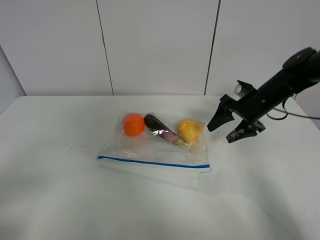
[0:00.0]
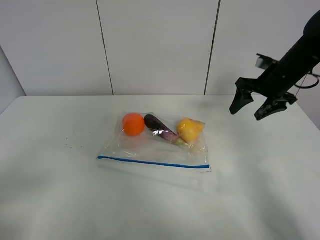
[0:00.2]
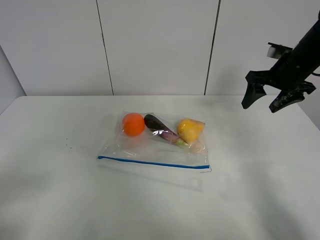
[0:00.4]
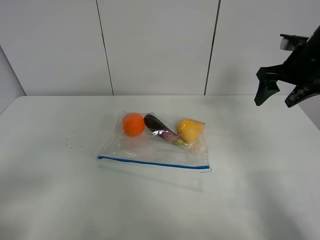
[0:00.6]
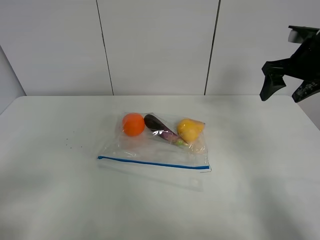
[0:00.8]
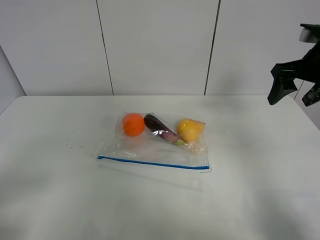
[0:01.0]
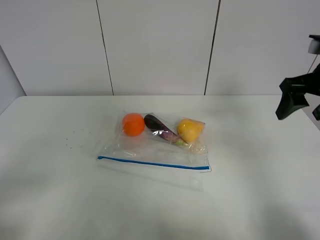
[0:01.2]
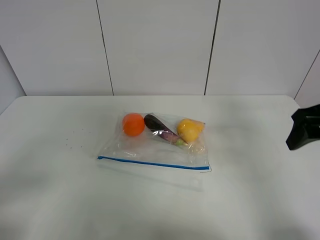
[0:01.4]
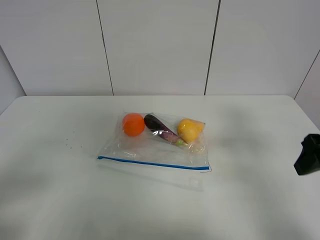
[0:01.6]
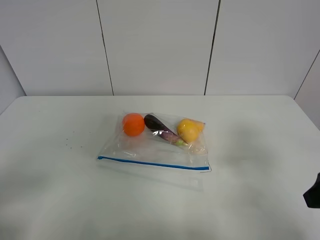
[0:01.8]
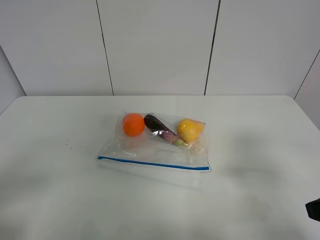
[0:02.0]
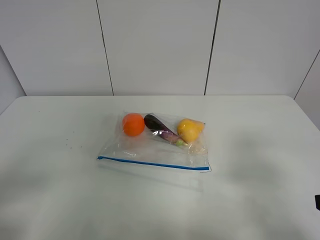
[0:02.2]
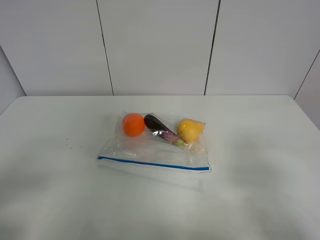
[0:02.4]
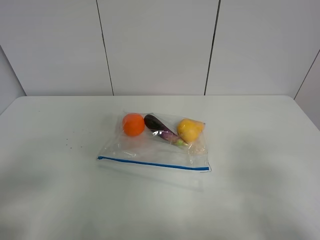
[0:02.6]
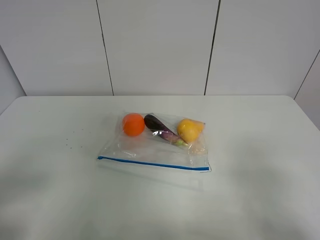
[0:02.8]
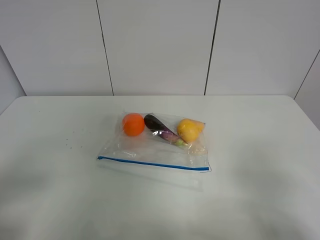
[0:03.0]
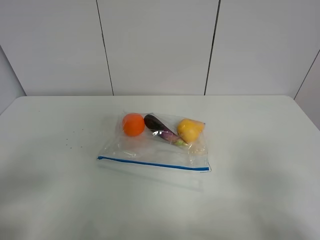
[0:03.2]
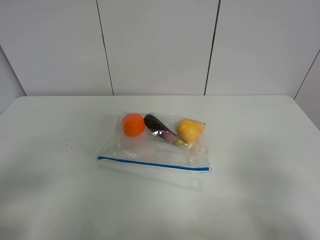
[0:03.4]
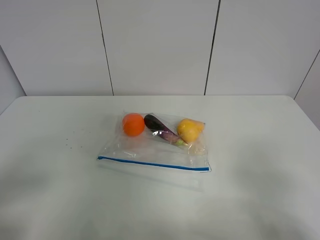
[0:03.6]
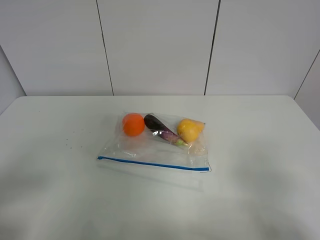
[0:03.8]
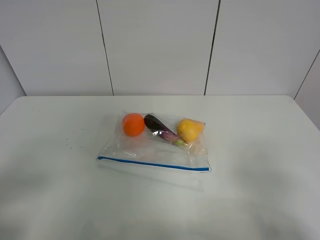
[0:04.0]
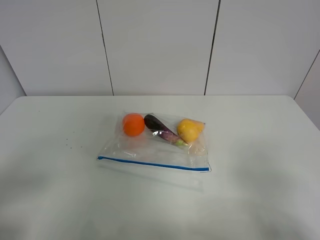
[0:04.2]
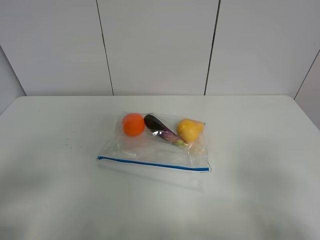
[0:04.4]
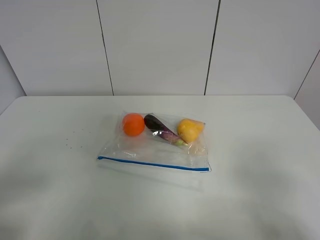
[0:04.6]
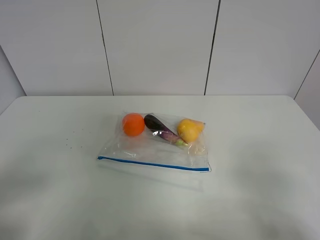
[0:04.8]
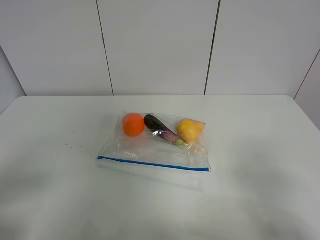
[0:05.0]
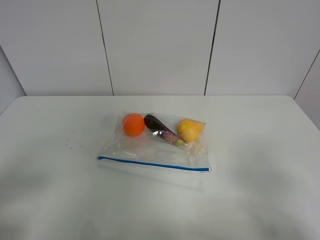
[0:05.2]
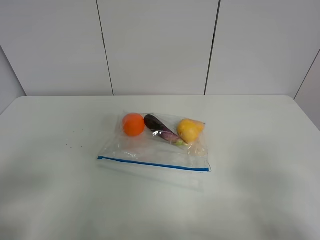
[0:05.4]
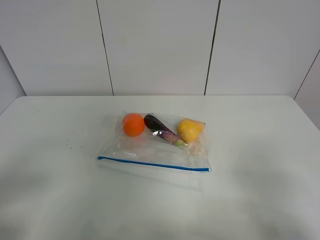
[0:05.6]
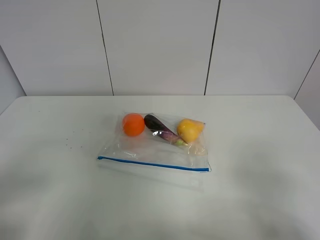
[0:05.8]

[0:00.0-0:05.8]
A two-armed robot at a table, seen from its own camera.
0:00.0 to 0:01.4: The right gripper travels backward and upward by some 20 cm.
0:01.4 to 0:02.8: The right gripper goes about 20 cm backward.
0:02.8 to 0:05.8: Both grippers stay put.

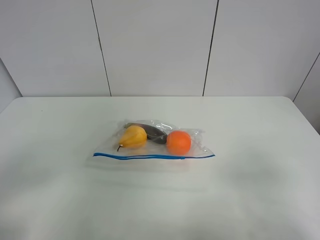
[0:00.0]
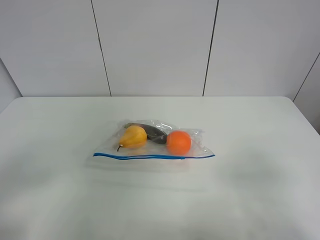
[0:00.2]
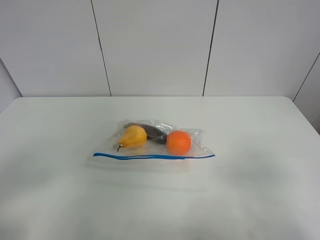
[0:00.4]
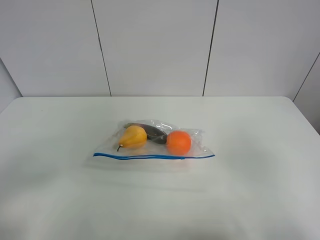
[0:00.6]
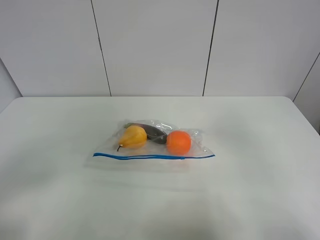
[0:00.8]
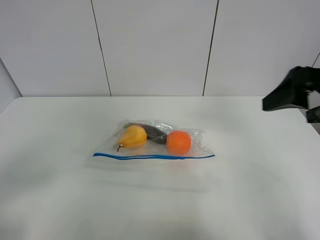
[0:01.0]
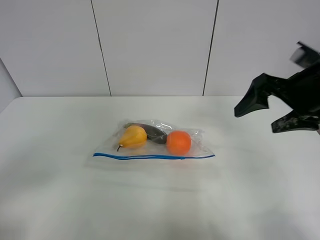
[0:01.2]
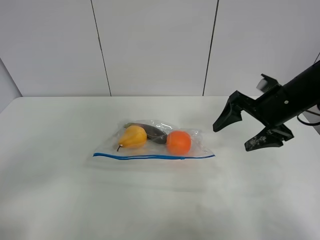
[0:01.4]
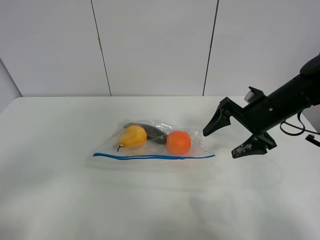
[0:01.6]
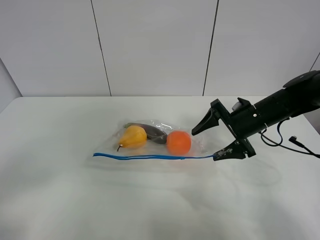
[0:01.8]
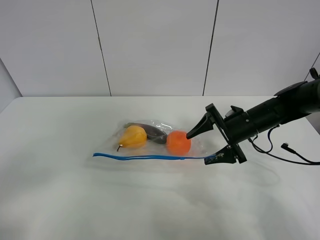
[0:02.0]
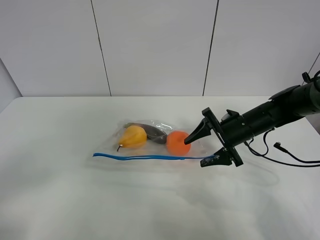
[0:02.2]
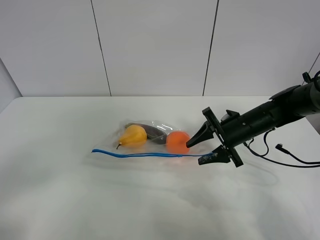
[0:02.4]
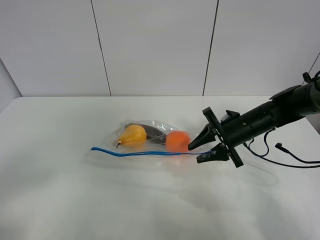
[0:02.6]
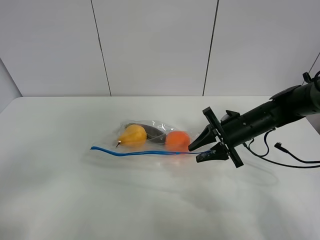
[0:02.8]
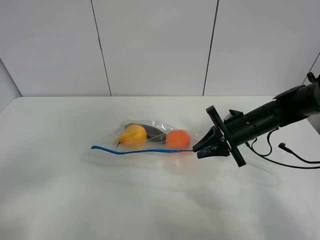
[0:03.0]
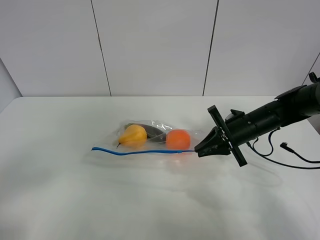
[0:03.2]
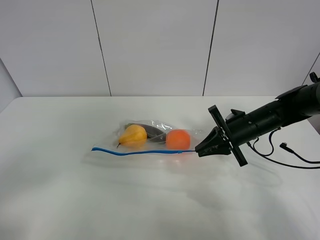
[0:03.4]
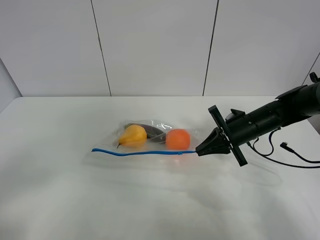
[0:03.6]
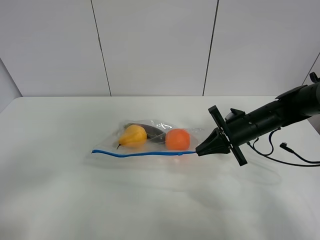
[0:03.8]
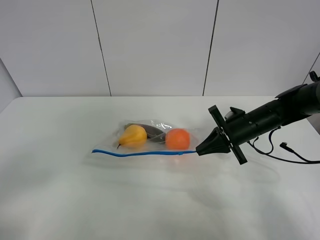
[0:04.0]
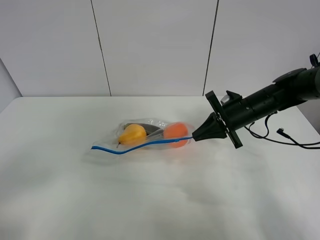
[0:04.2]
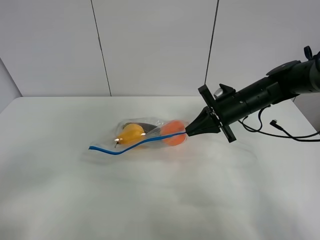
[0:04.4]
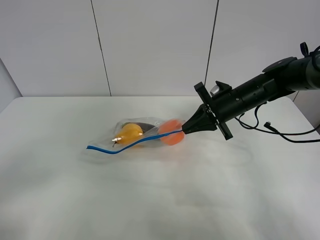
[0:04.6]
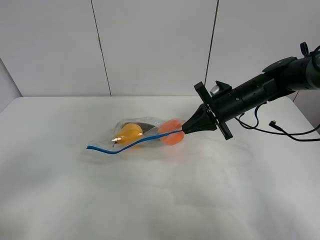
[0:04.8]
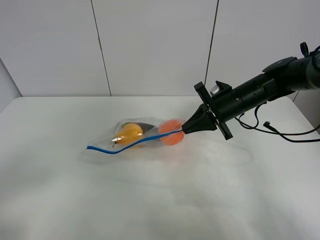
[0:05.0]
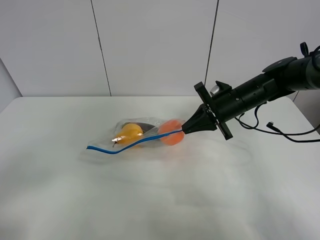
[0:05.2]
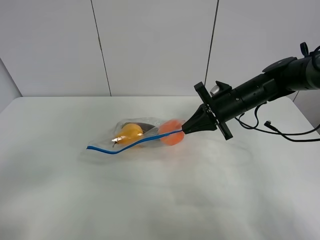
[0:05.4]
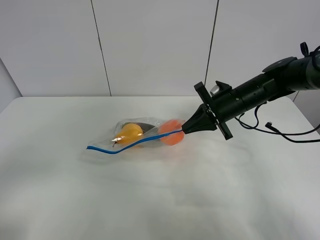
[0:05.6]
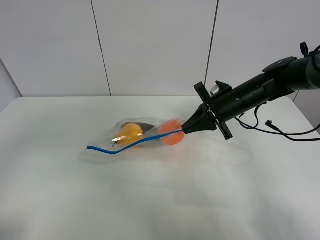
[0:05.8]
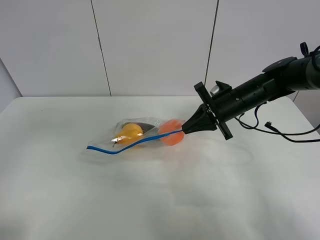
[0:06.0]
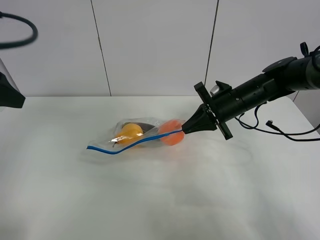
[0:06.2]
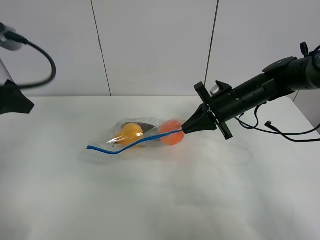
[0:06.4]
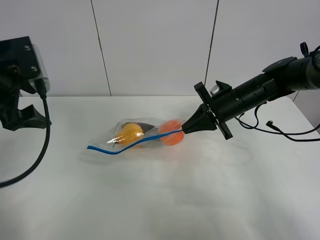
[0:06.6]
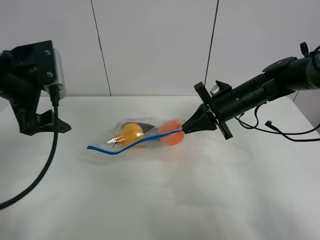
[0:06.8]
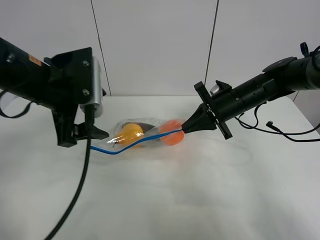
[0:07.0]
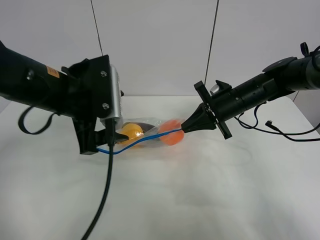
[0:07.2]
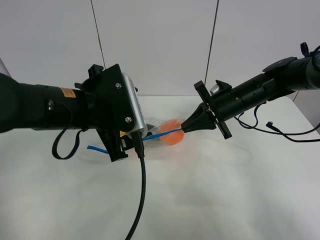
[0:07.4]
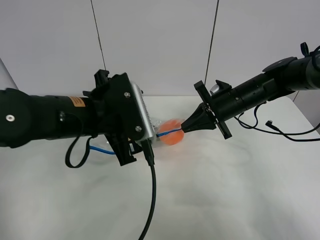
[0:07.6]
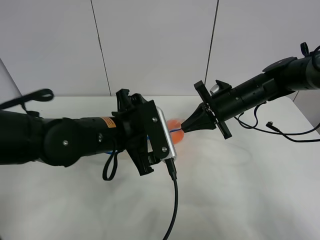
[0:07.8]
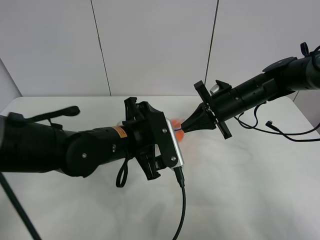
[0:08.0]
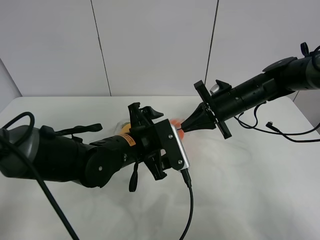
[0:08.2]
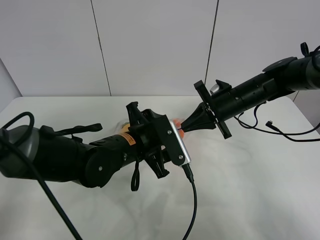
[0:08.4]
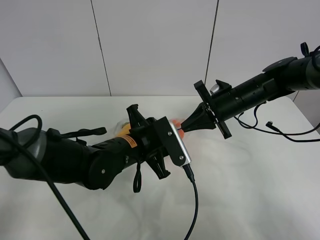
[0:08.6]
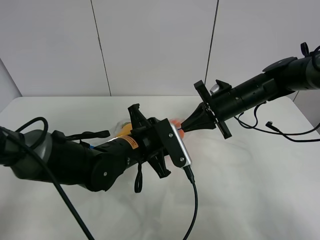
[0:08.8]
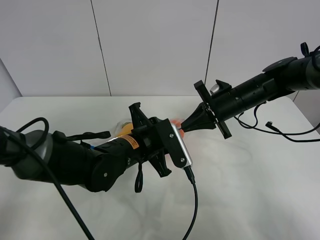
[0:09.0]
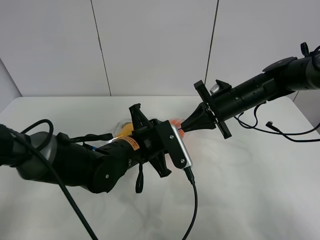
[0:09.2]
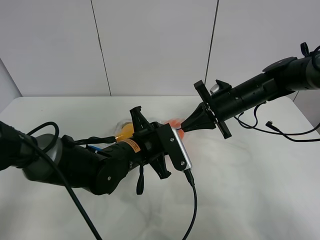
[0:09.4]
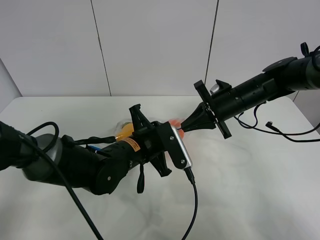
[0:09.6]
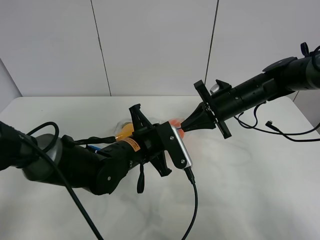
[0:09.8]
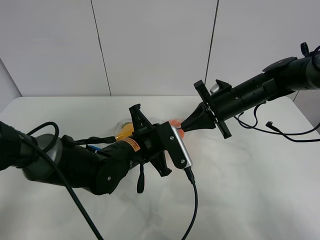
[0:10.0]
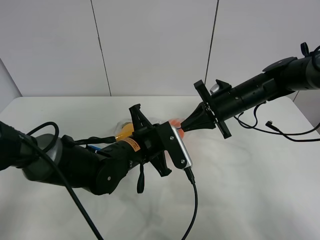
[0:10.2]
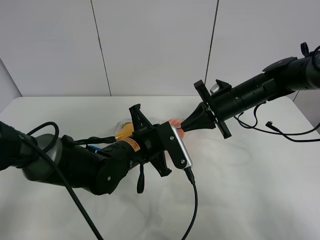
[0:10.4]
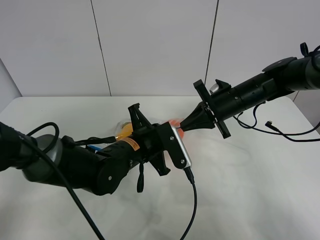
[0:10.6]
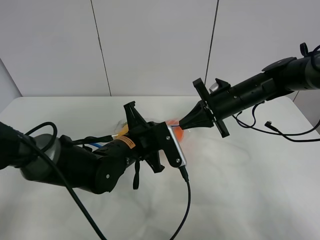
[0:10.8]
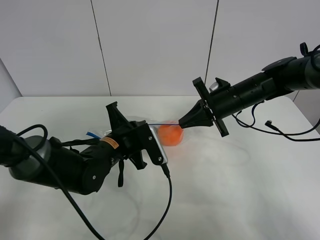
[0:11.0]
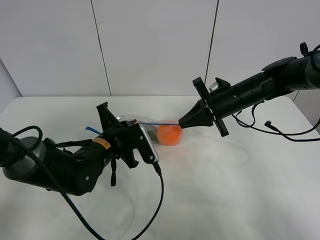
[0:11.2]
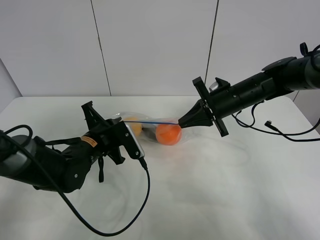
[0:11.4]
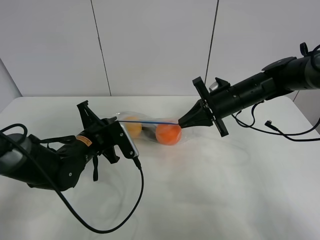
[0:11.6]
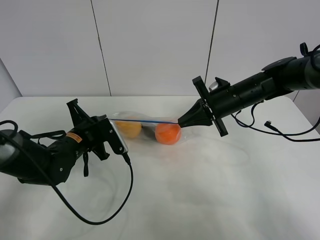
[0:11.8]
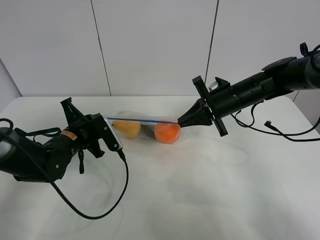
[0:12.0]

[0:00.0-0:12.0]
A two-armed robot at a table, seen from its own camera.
Step, 0:00.0 to 0:03.6: Grasp the fruit bag with right gripper.
Step, 0:03.8 to 0:04.6: Lift the fruit bag with your right gripper.
0:00.0 to 0:01.6: The right gripper goes about 30 cm forward.
0:01.6 to 0:03.0: The right gripper moves downward, about 5 cm, and closes.
0:03.0 to 0:04.4: The right gripper moves some 5 cm.
0:04.4 to 0:06.0: The left gripper shifts approximately 15 cm forward and upward.
0:06.0 to 0:07.6: The left gripper goes some 25 cm to the right, downward and forward.
0:07.6 to 0:09.0: The left gripper goes some 10 cm downward and to the right, and closes up.
0:09.0 to 0:10.4: The left gripper closes.
0:10.4 to 0:12.0: The left gripper is displaced to the left by roughly 15 cm.

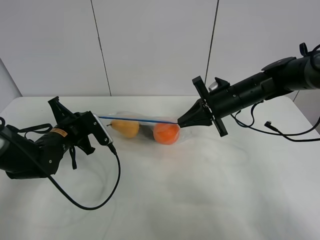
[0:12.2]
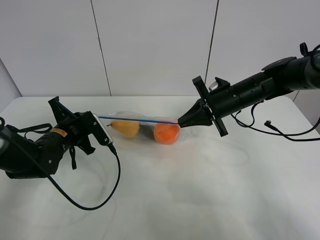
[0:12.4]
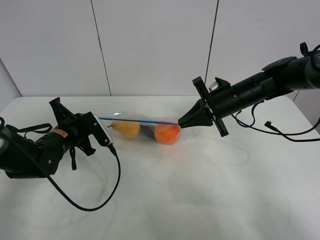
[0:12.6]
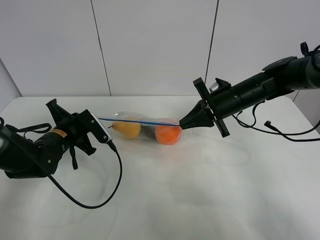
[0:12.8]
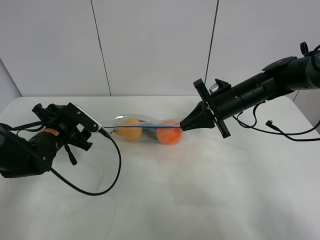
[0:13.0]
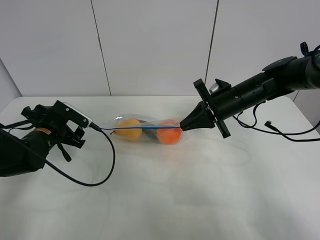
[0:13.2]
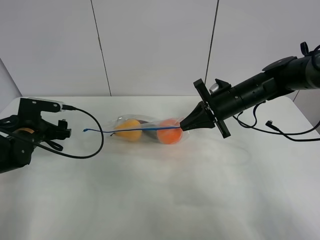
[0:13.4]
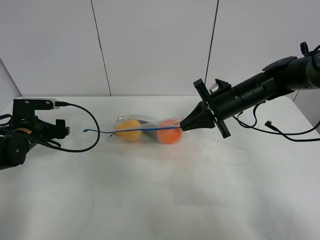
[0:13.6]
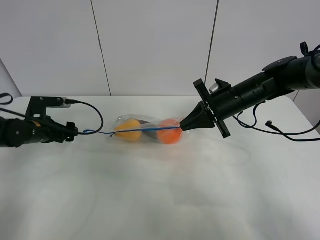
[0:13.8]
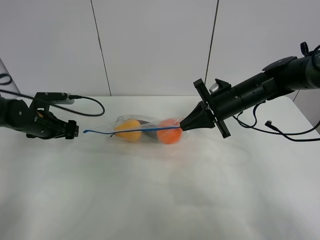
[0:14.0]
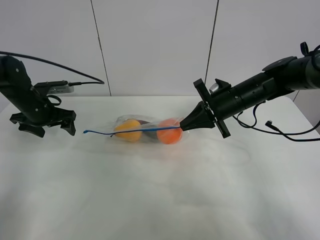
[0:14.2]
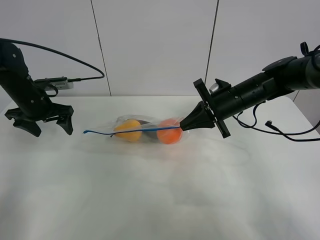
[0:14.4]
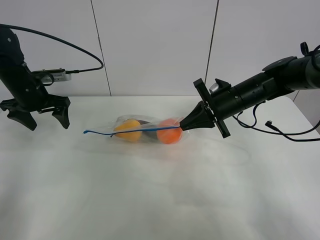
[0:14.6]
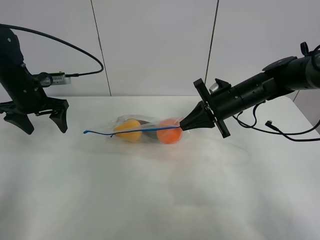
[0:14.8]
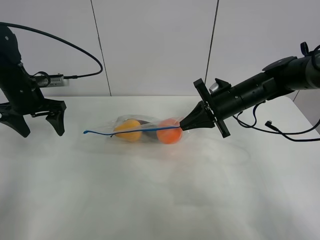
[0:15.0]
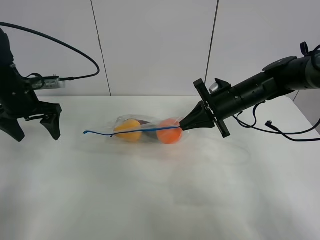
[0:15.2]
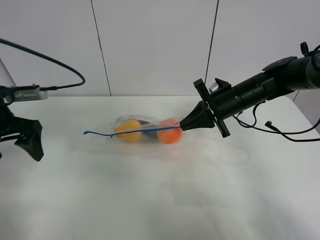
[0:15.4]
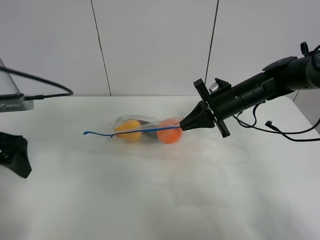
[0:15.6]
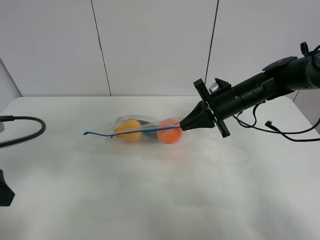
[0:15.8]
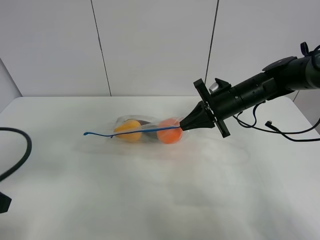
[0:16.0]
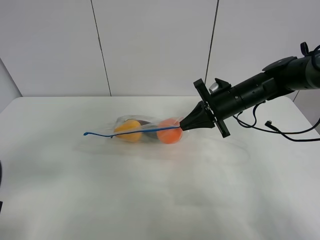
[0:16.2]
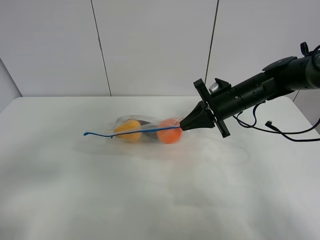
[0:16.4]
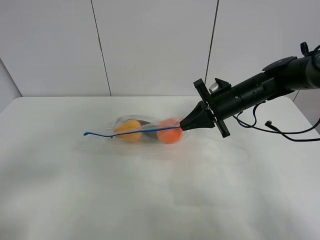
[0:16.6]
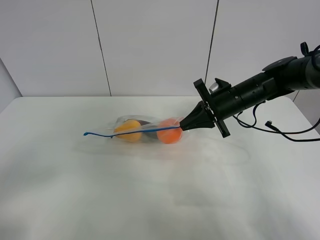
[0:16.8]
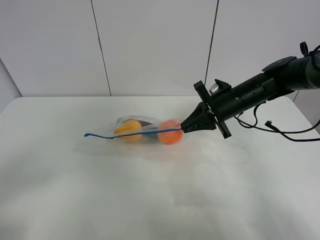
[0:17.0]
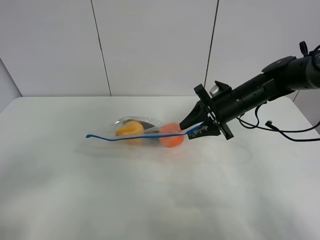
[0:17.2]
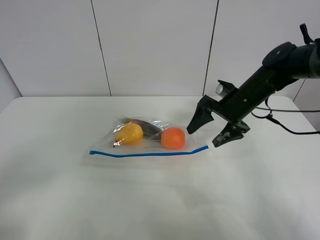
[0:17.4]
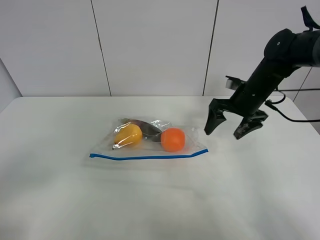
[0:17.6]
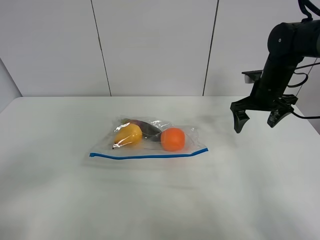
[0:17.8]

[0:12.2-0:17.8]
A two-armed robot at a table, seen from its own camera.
0:12.2 to 0:13.6: The left gripper goes about 10 cm to the left, and opens.
0:13.6 to 0:15.0: The left gripper travels upward by approximately 10 cm.
0:15.0 to 0:16.4: The left gripper moves backward, about 30 cm.
0:16.4 to 0:17.8: The right gripper travels to the right by approximately 10 cm, and opens up; the left gripper heads backward, covering about 5 cm.
